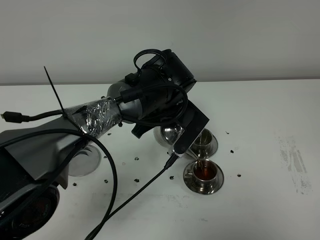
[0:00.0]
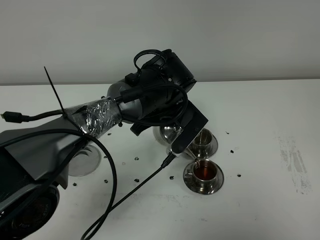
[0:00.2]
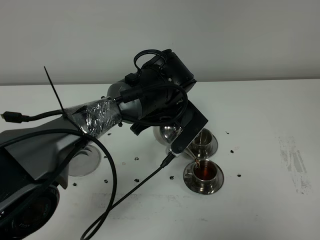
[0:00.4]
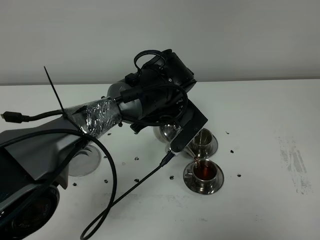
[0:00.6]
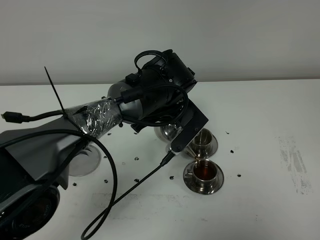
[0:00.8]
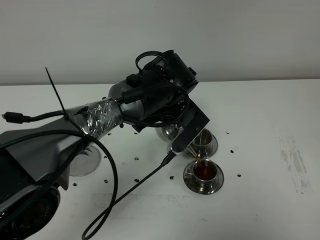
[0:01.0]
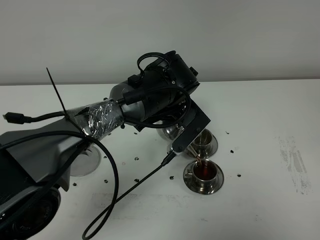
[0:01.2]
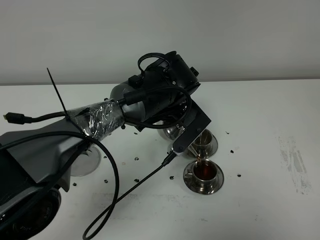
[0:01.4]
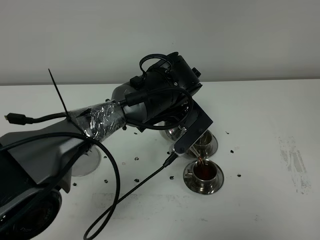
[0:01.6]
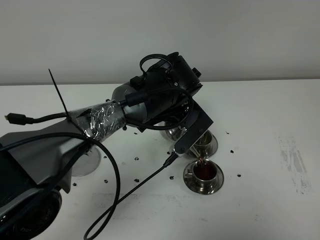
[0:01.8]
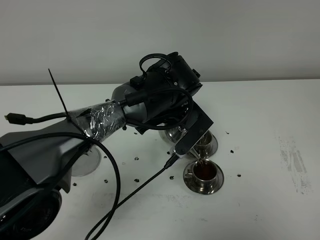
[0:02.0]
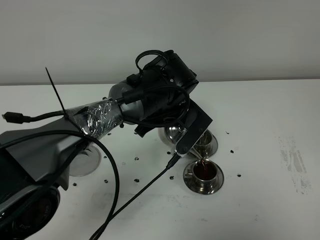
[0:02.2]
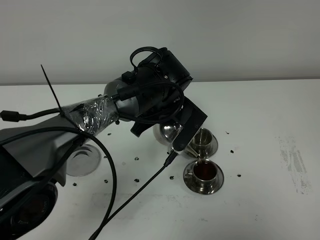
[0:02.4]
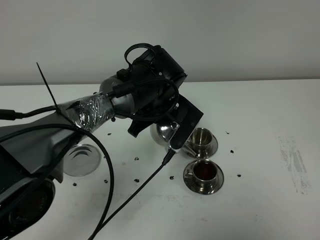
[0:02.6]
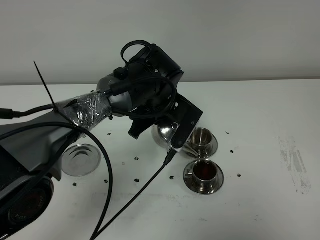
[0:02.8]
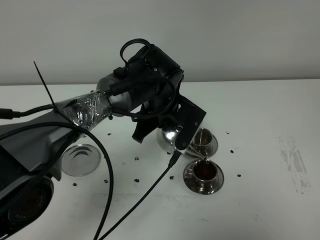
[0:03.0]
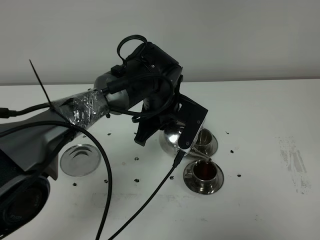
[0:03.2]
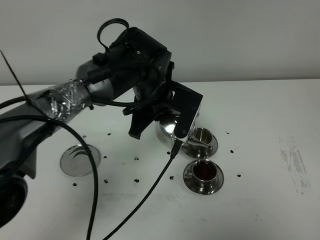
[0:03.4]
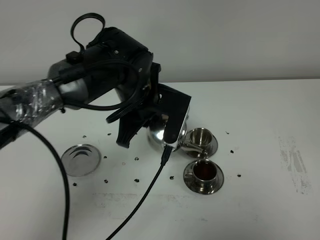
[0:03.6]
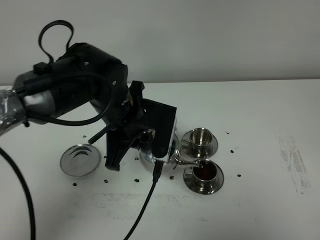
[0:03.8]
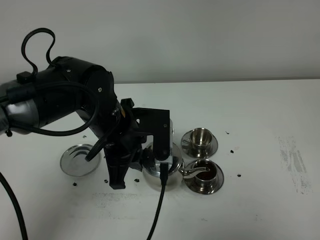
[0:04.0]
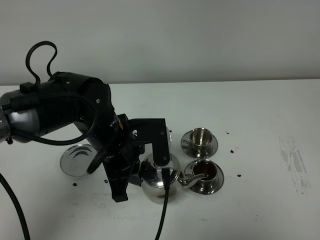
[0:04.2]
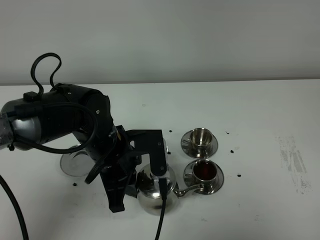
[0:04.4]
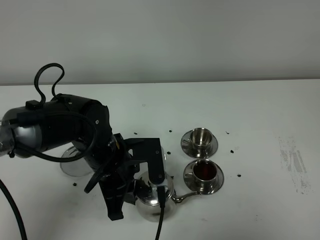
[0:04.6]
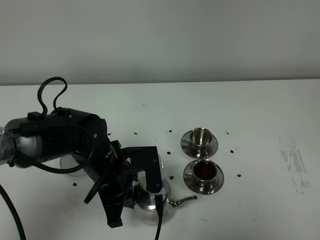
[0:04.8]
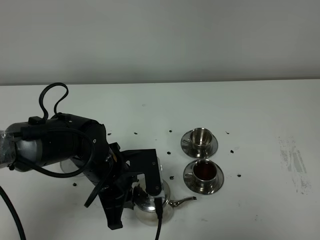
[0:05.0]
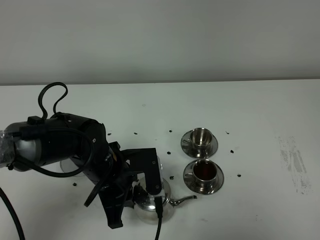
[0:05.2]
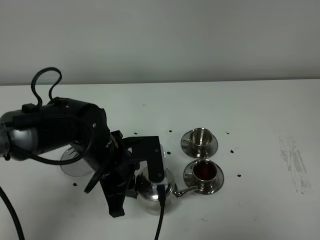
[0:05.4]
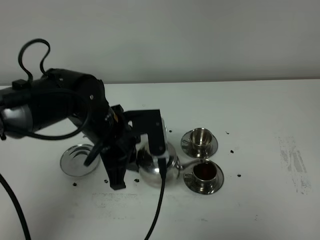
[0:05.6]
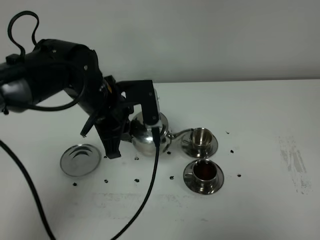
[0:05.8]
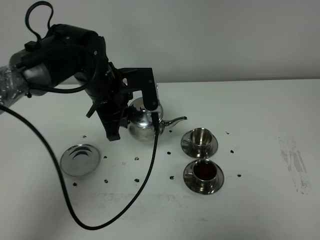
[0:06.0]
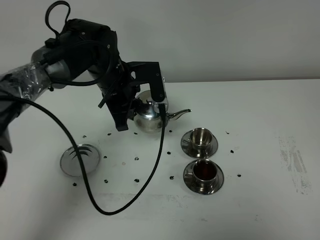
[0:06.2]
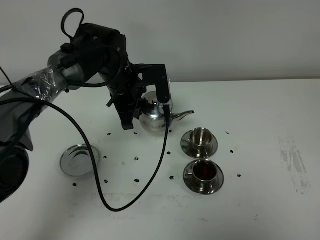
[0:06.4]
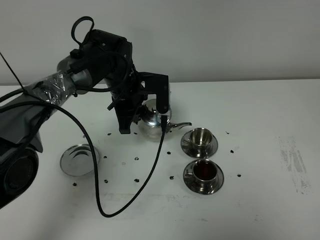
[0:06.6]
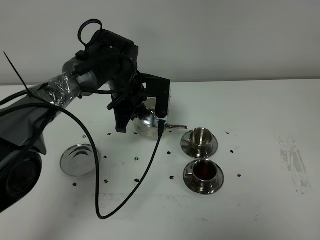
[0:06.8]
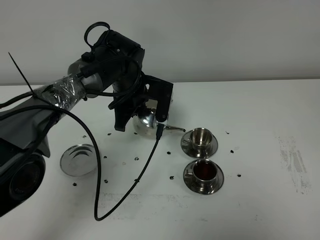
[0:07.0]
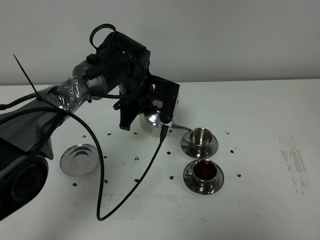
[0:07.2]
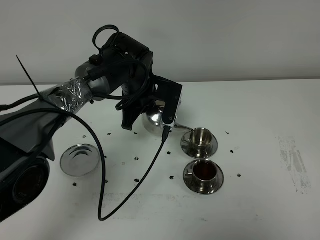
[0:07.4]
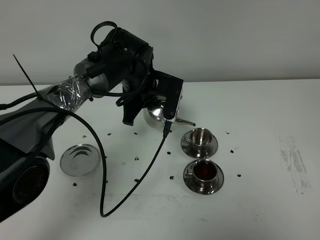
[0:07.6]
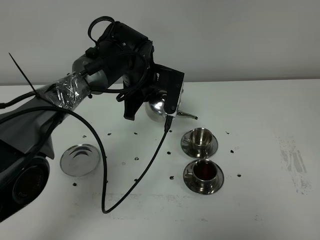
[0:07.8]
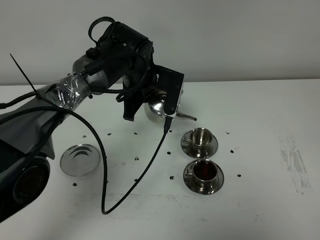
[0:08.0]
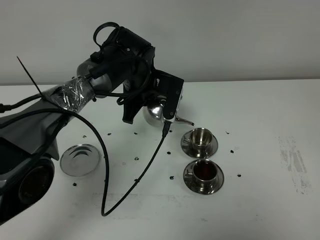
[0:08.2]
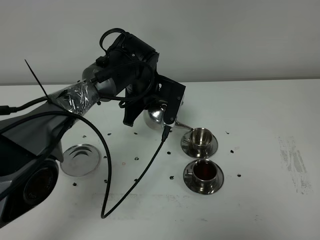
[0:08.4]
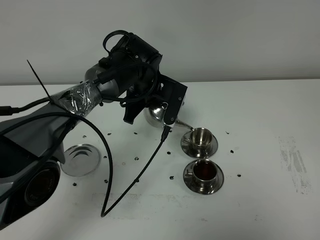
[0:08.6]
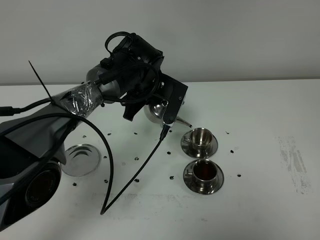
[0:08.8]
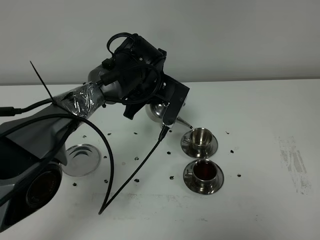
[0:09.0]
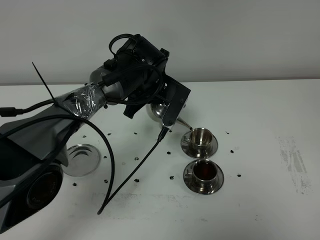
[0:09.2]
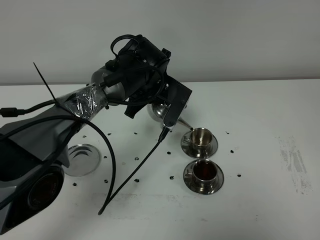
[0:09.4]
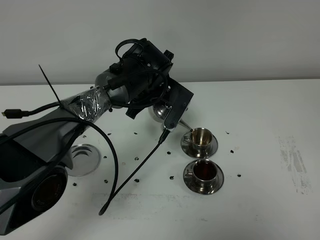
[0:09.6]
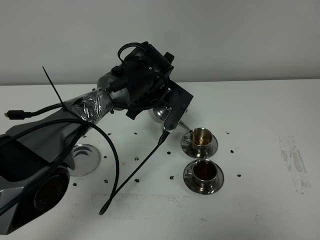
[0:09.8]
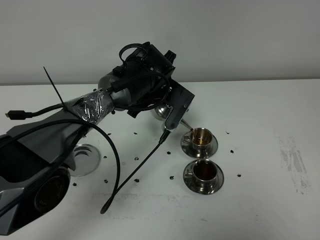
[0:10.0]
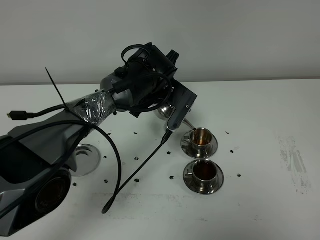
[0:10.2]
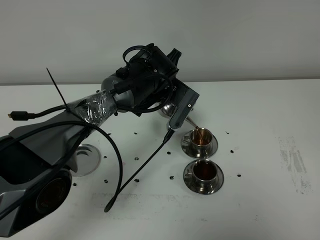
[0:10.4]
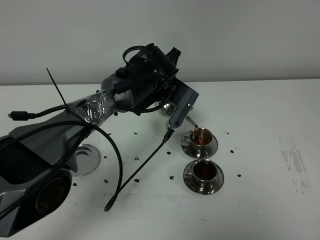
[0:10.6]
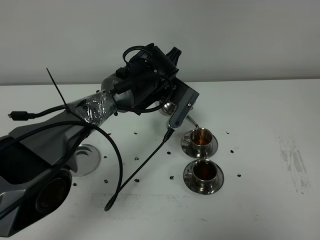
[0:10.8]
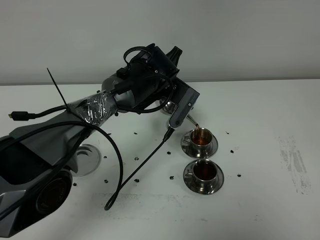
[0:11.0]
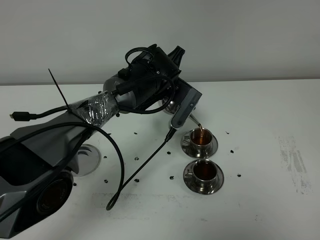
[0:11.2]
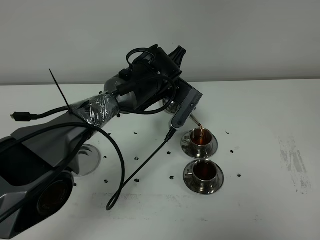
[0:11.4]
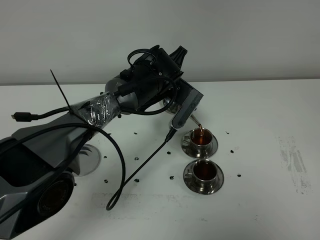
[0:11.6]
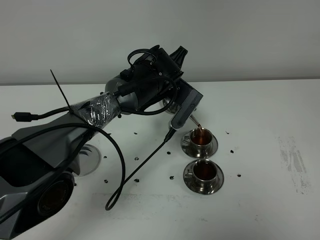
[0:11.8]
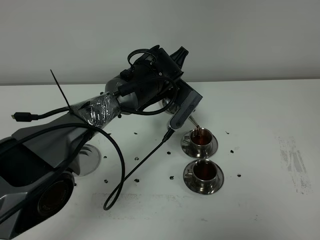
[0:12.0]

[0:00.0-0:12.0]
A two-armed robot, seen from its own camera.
Task of the whole recording: grasp the stainless steel teapot and pour the tea into the two stainless steel teacups one by one, put the stainless steel teapot back in its original place.
0:00.0 to 0:03.0: The grippers move only a little.
0:03.0 to 0:04.4: The left gripper heads backward and to the left, covering approximately 15 cm.
0:04.4 to 0:06.0: The left gripper goes approximately 10 cm forward.
0:06.0 to 0:07.6: The left gripper shifts about 5 cm to the right.
0:07.6 to 0:09.0: The grippers stay close to where they were, moving slightly.
0:09.0 to 0:12.0: There are only small adjustments of the grippers.

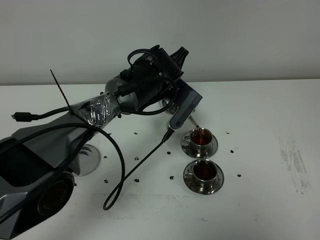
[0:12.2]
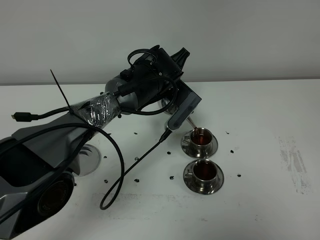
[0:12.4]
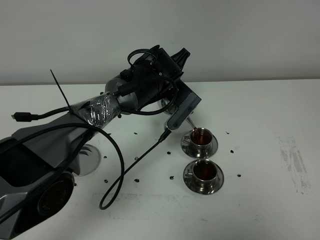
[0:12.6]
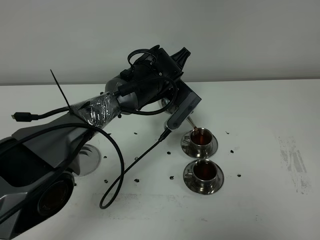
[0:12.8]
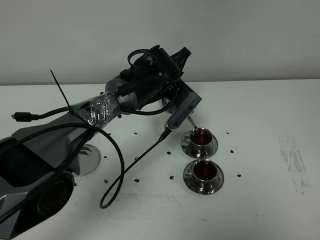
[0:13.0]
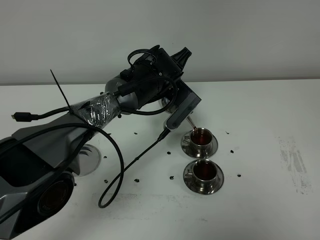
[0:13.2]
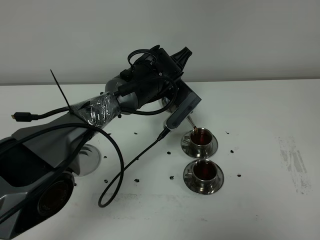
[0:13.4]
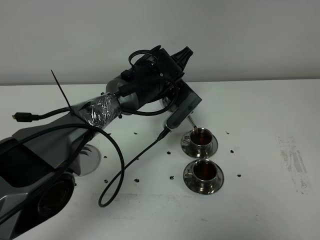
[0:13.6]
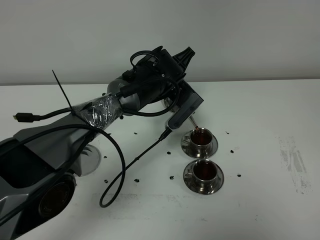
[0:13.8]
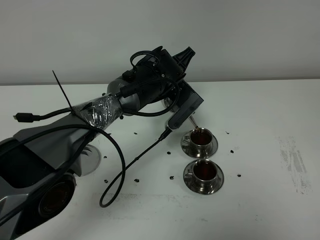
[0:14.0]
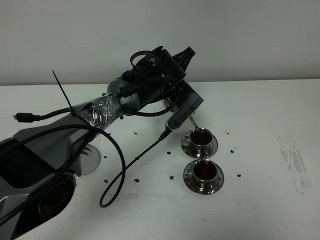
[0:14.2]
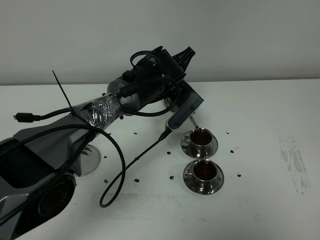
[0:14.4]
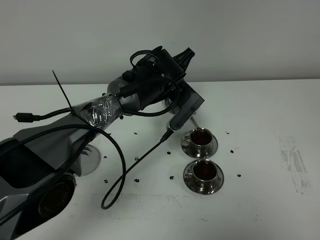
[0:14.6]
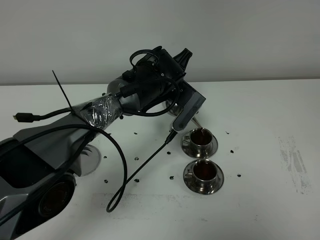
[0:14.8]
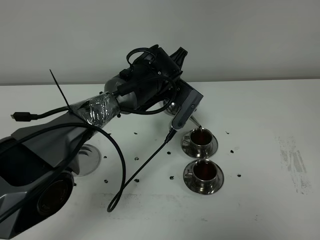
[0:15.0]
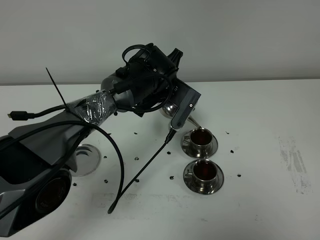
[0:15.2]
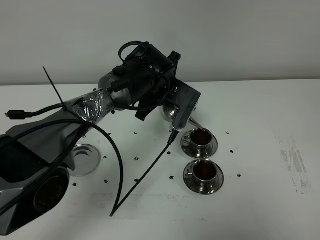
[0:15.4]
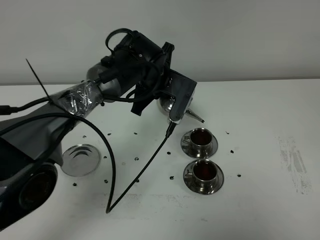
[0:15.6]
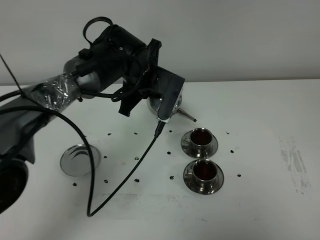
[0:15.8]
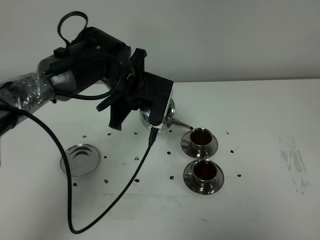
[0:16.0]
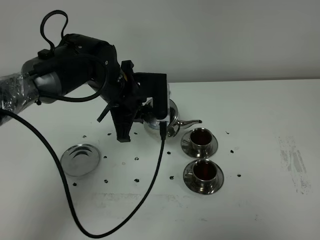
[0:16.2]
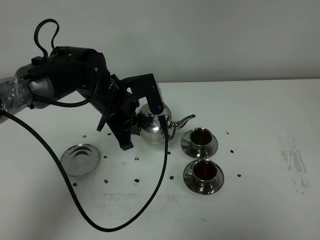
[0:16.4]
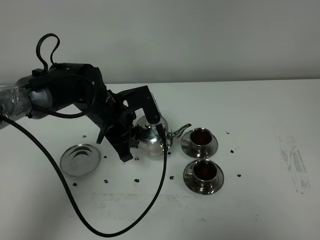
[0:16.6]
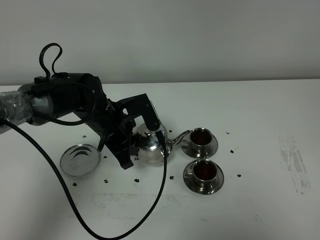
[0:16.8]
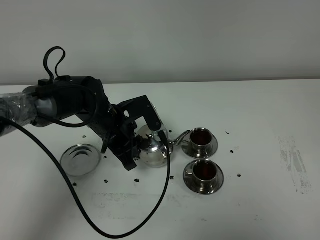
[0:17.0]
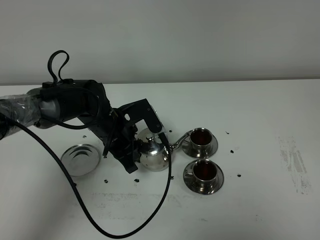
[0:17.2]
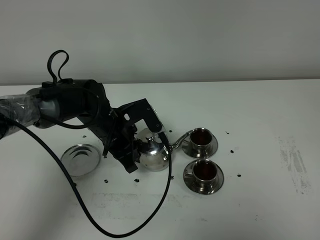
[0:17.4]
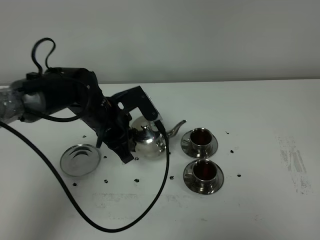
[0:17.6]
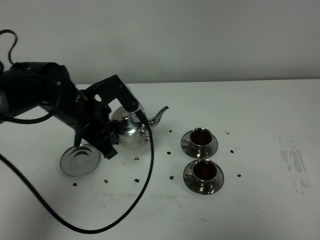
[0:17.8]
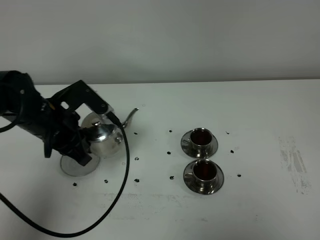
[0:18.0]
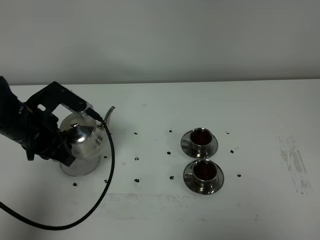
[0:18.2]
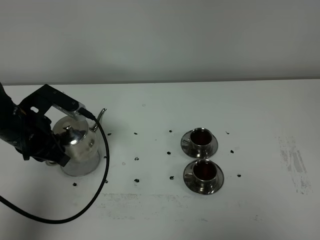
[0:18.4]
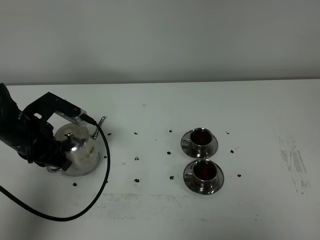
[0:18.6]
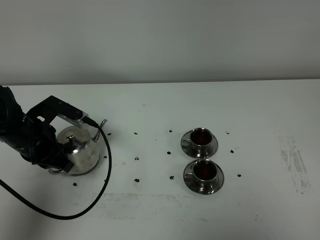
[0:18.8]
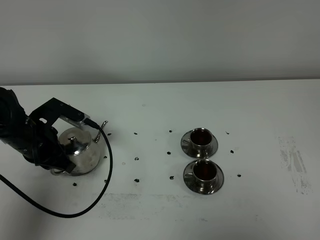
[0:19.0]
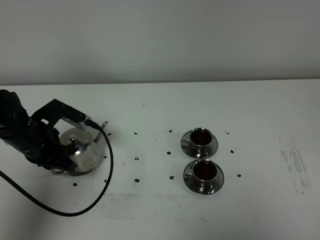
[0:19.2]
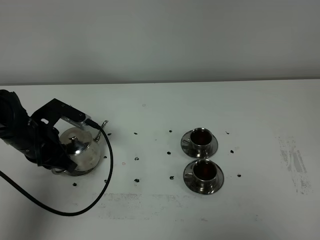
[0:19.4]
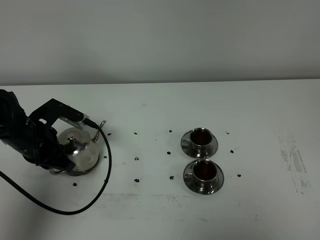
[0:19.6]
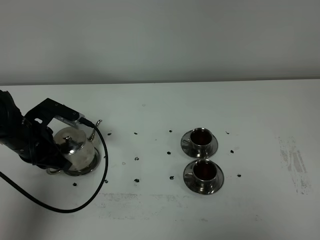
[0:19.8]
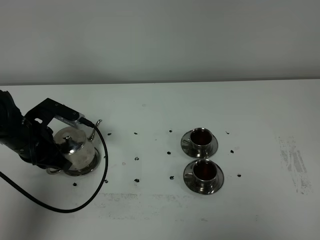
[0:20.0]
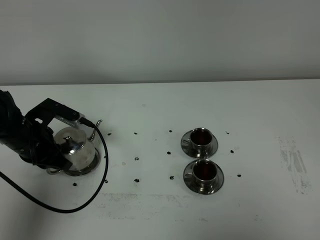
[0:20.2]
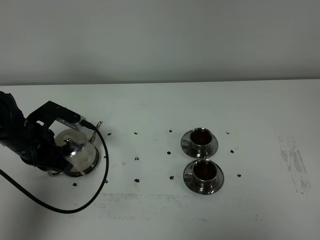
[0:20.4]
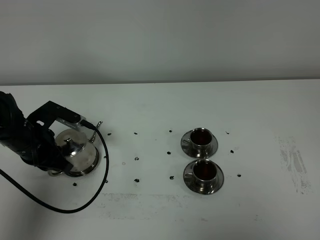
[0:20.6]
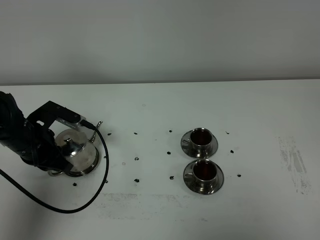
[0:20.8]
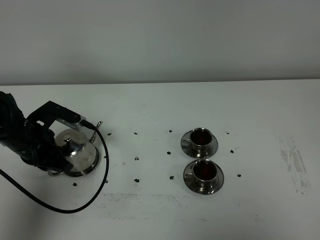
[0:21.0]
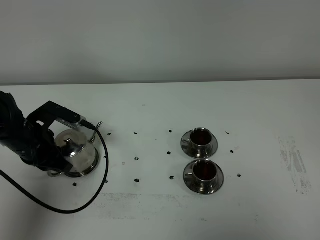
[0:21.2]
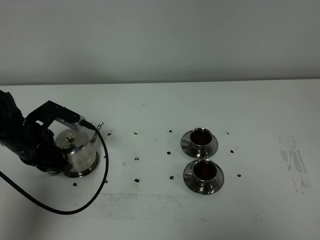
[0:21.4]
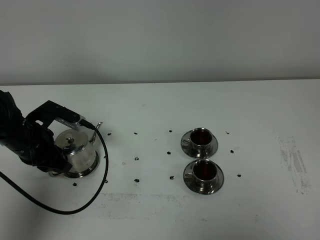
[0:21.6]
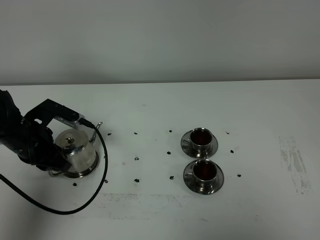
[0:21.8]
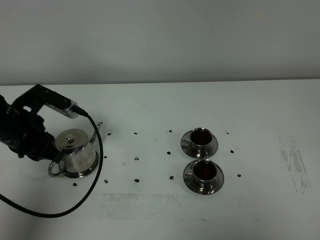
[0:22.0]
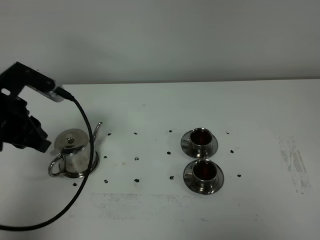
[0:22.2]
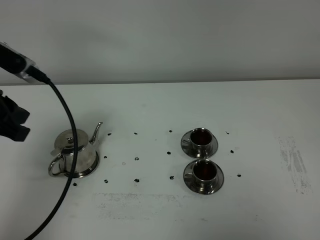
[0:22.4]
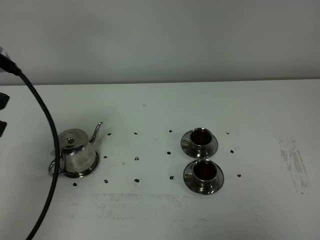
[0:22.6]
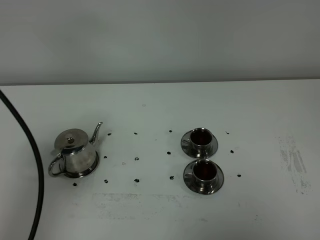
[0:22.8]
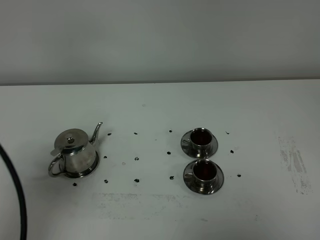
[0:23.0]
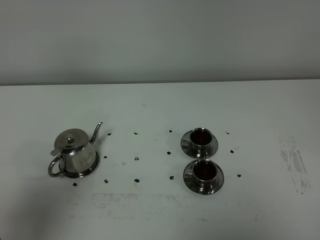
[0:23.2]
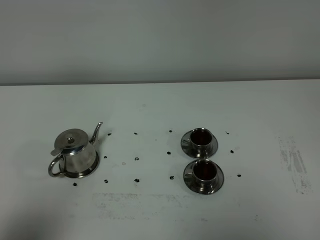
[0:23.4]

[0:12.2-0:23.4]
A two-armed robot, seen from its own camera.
Task of the whole recording: grasp the stainless steel teapot and pour the tea into the two stainless steel teacups one by one, put the stainless steel teapot back in its original place.
Step, 0:12.2 to 0:15.6: Pour tea into the teacup with the left gripper.
0:12.2 to 0:15.4: There are only small adjustments of the grippers.
0:15.4 to 0:17.0: The left gripper is displaced to the left and backward by some 10 cm.
0:17.0 to 0:18.6: The left gripper moves to the left, some 15 cm.
0:18.6 to 0:20.2: The grippers make only small movements.
0:20.2 to 0:21.8: Both grippers stay put.
0:21.8 to 0:23.4: The left gripper is displaced backward and upward by about 35 cm.
